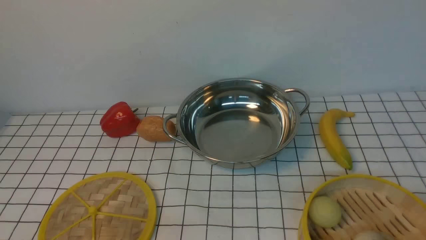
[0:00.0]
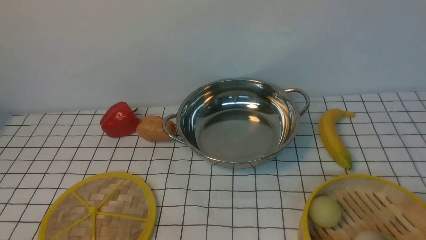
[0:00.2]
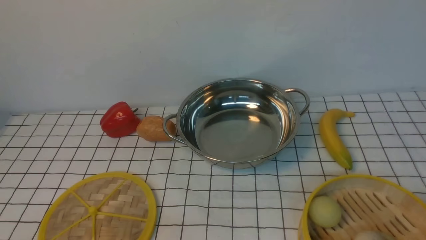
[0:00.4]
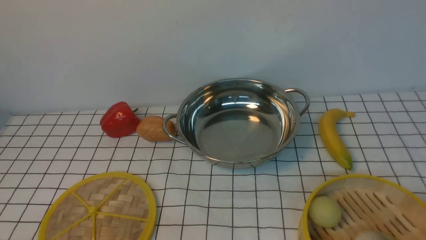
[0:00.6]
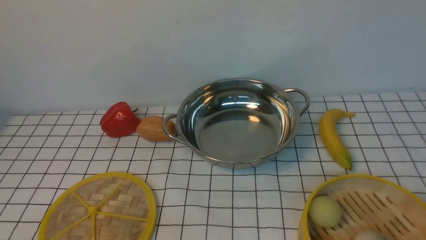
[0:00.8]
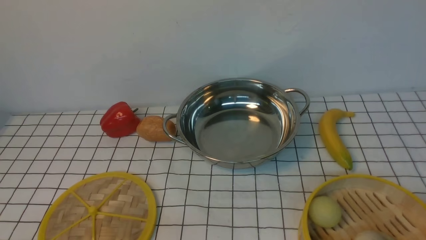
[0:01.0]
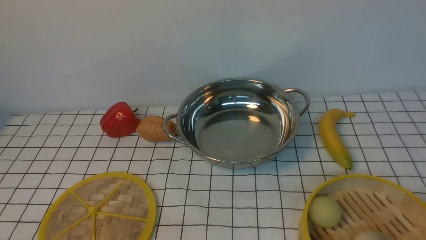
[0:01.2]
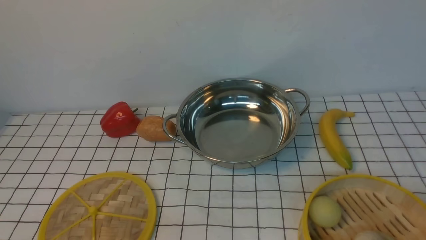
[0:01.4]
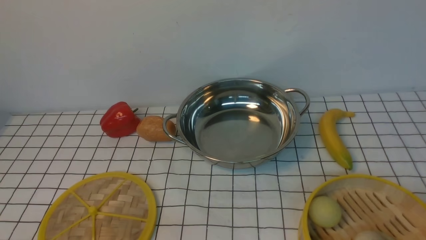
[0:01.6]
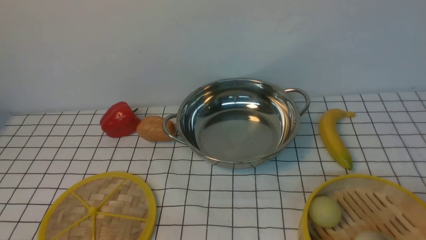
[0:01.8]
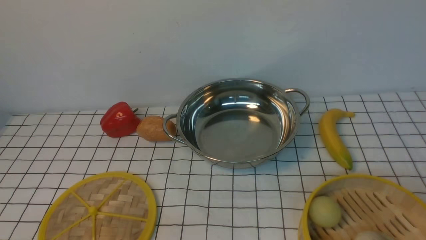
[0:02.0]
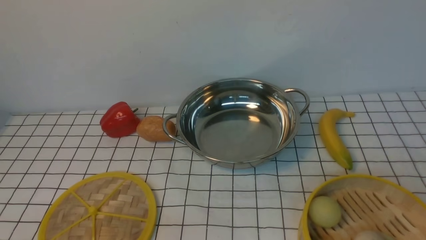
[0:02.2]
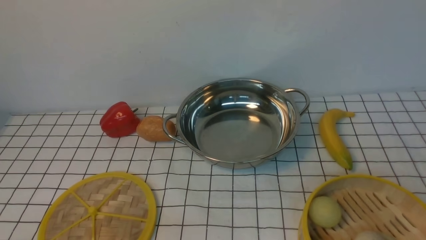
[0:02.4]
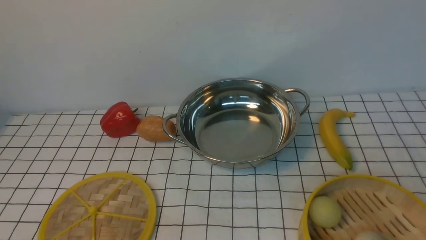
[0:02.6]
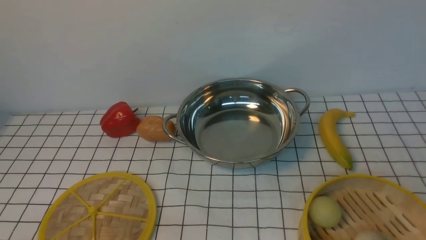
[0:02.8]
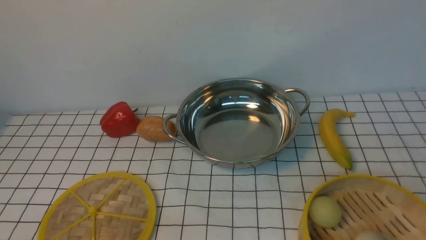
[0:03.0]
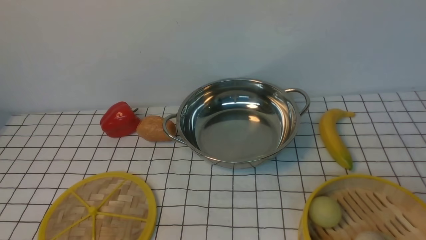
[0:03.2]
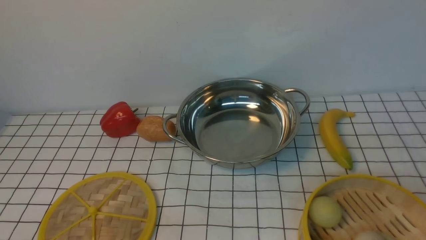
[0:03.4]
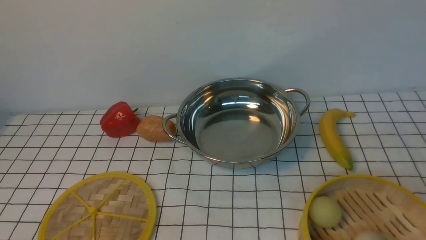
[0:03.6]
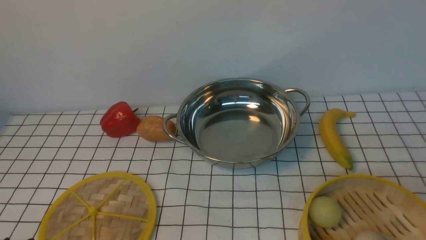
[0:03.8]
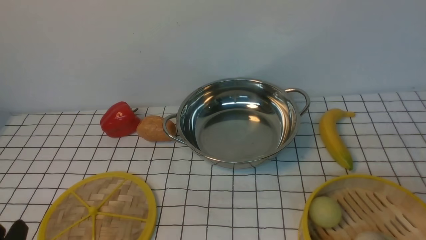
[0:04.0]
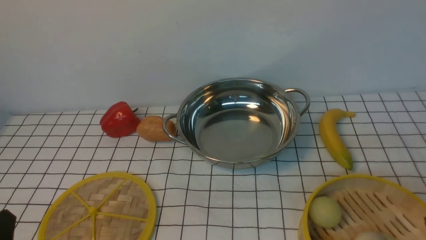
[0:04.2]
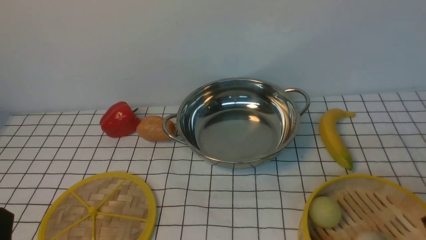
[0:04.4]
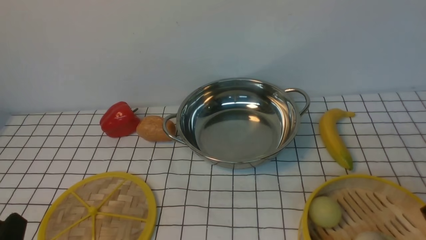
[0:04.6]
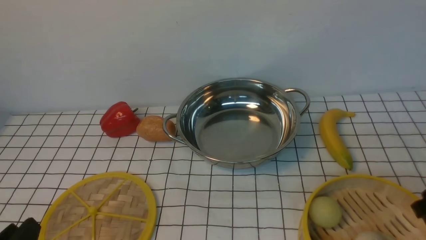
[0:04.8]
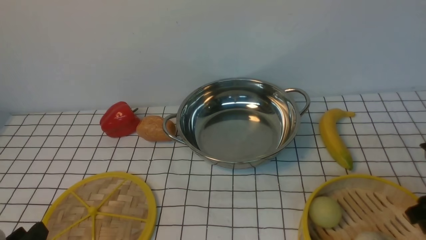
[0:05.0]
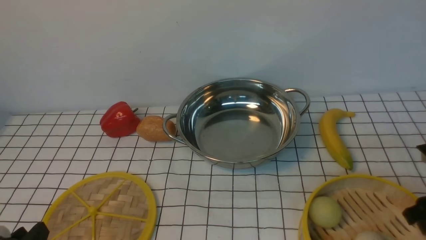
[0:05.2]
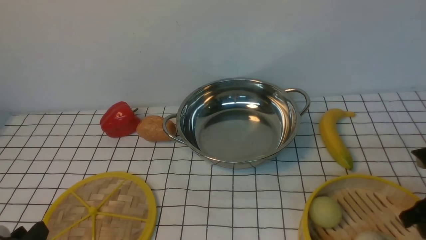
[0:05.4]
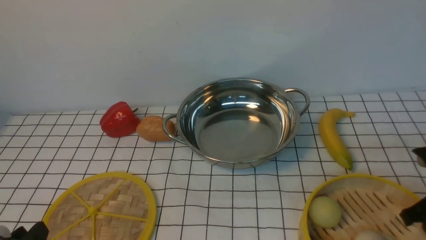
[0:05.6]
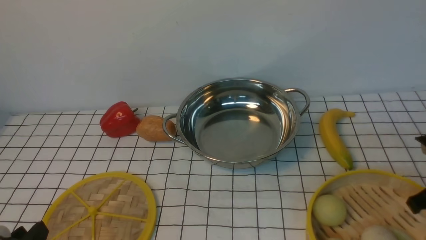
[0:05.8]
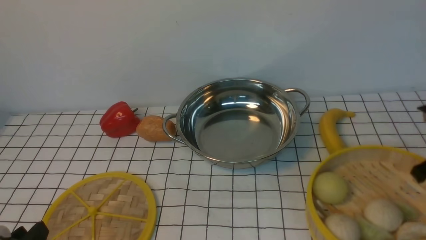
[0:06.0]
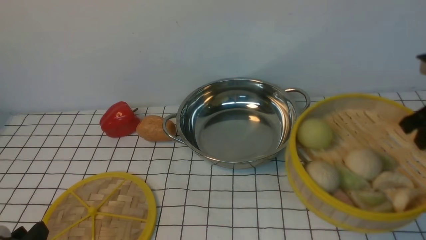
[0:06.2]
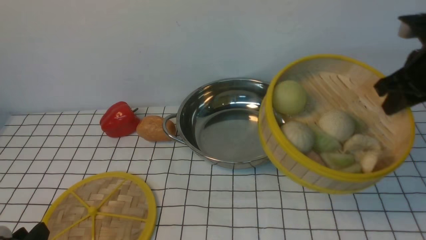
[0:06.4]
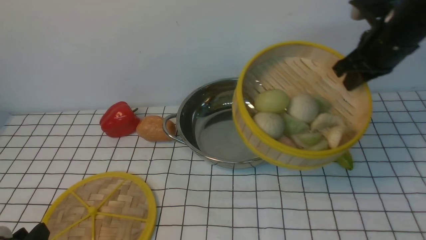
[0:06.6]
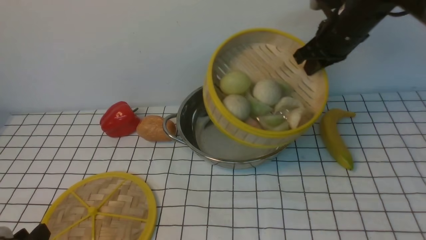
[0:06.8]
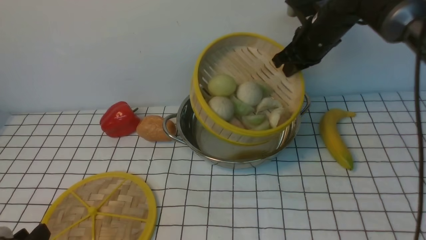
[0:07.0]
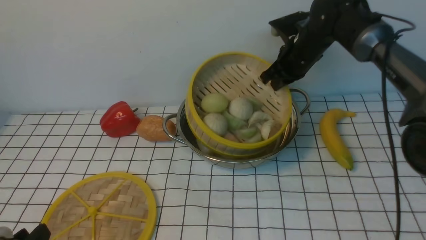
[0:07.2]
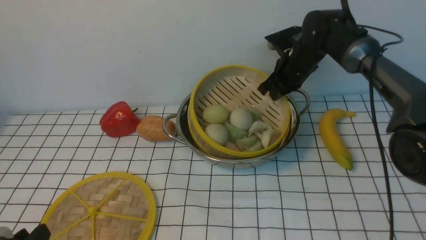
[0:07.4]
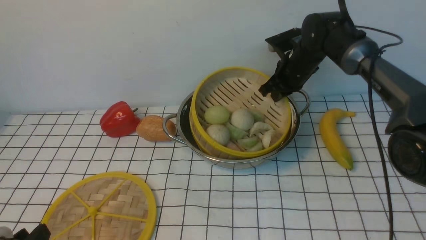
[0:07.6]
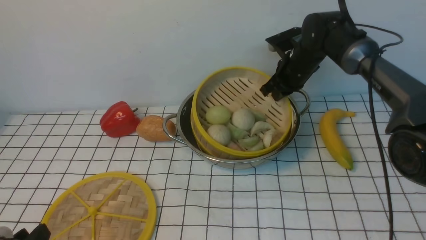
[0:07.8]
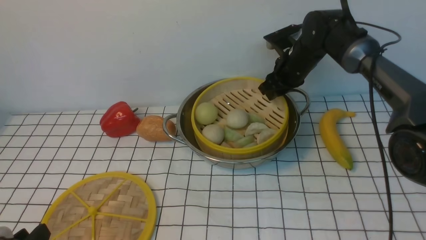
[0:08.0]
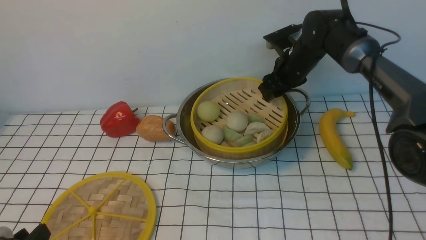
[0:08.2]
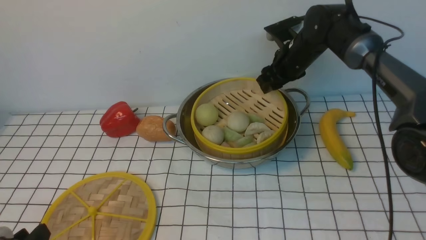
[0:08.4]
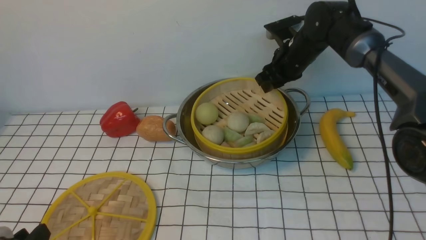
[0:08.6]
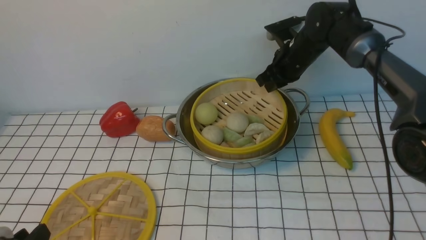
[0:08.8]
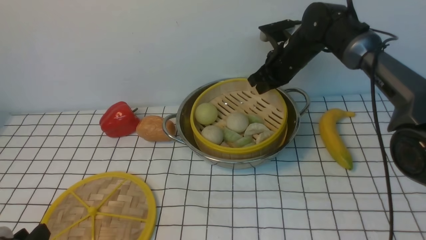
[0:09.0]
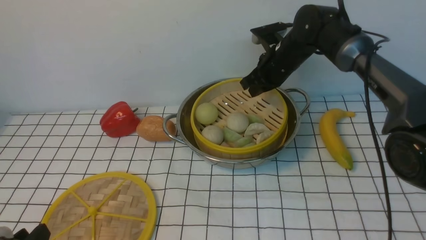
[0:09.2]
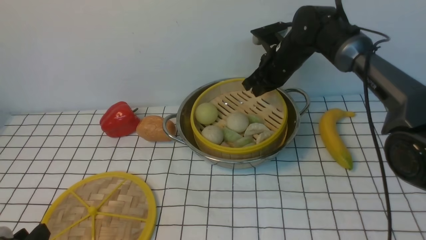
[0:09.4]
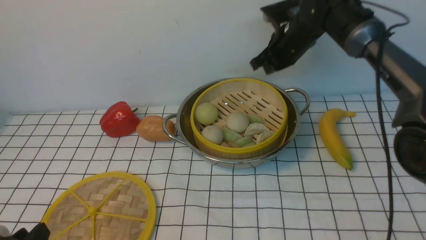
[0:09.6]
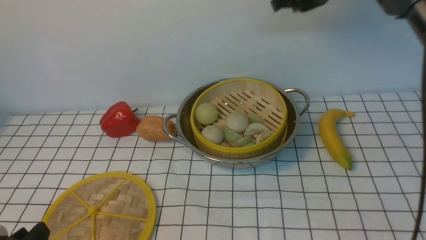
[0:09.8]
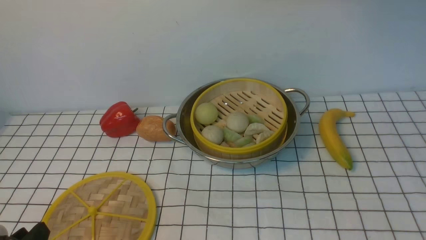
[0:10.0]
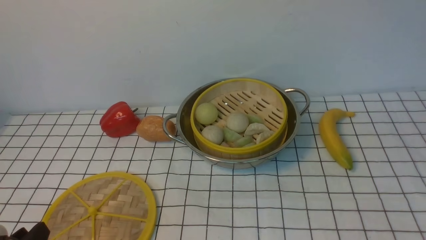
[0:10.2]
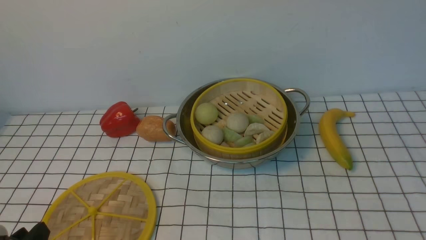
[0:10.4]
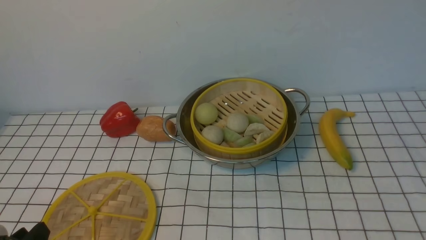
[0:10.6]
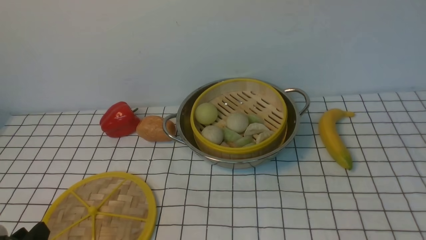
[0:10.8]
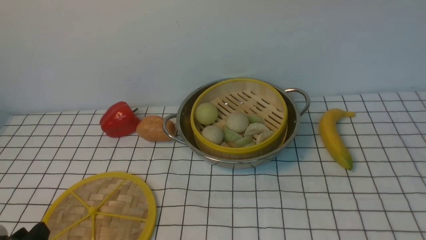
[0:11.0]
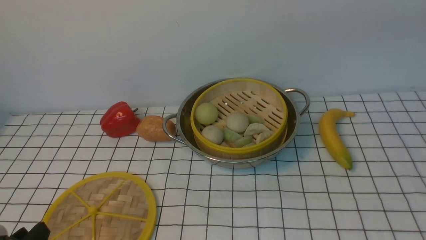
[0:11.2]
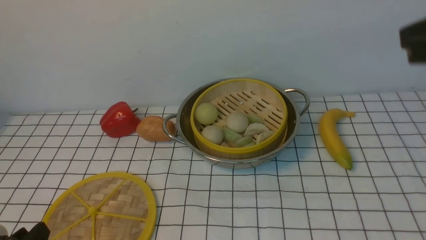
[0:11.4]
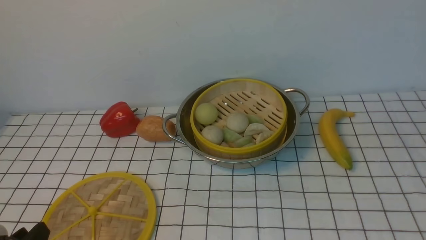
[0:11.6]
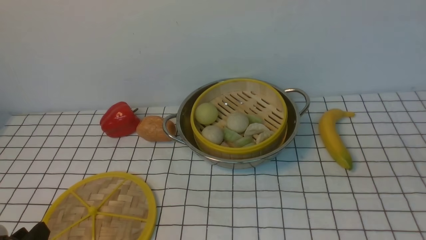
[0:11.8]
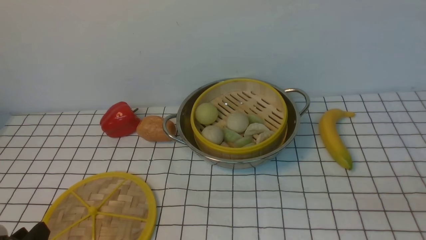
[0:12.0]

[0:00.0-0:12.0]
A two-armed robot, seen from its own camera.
Task of the whole recording: place the steamer in the pot on the white tablecloth, and put the lid on the steamer.
Step, 0:00.0 to 0:05.8: use the right arm to lift the steamer closest to it.
Step, 0:06.0 to 0:09.4: use the right arm to put the steamer into the iron steamer pot in the middle.
0:04.4 to 0:06.0: The right gripper moves forward, some 10 cm, and closes its fingers.
0:06.0 to 0:07.6: The right gripper heads forward and to the left, covering approximately 30 cm.
0:07.6 to 0:09.0: The right gripper opens, then closes again.
0:09.0 to 0:10.4: The right gripper moves upward and backward, about 35 cm.

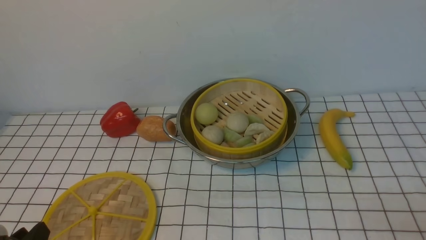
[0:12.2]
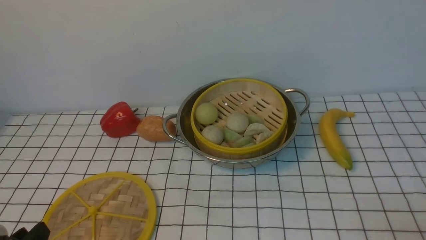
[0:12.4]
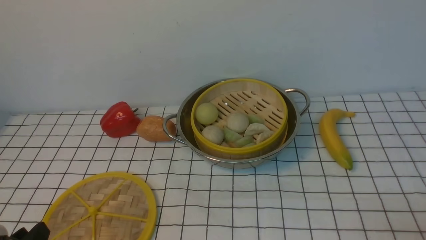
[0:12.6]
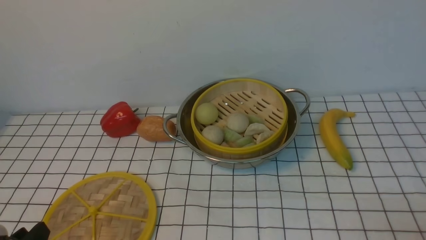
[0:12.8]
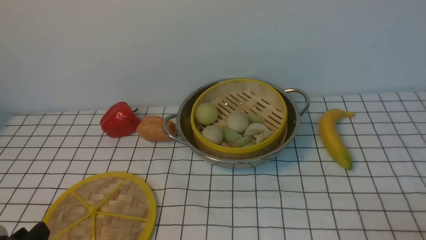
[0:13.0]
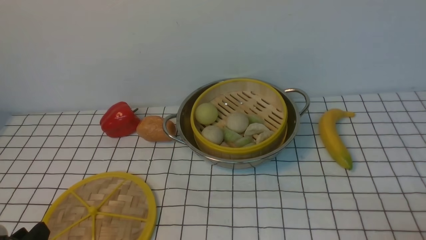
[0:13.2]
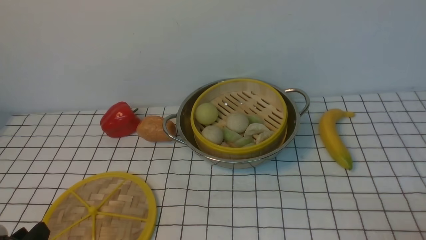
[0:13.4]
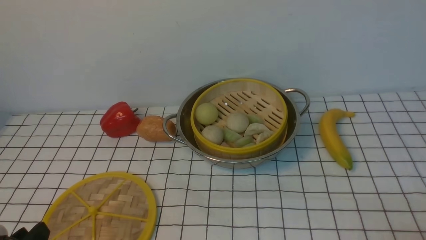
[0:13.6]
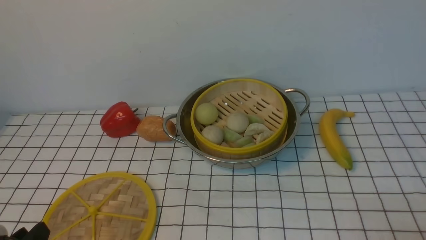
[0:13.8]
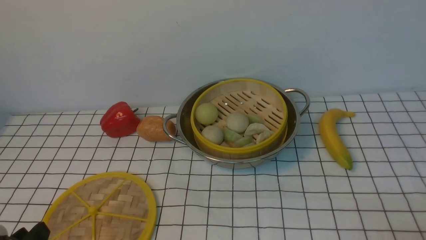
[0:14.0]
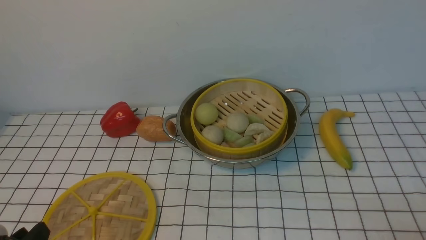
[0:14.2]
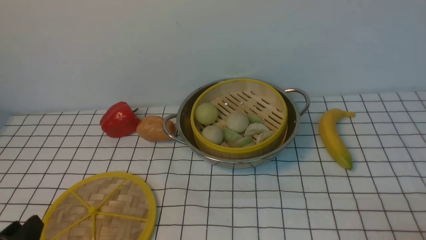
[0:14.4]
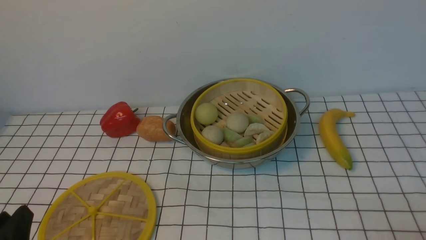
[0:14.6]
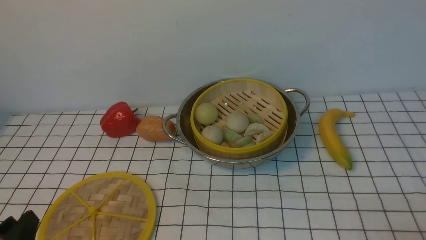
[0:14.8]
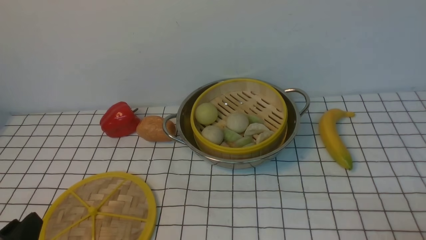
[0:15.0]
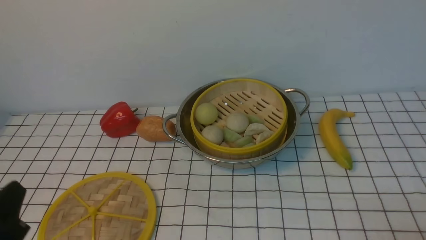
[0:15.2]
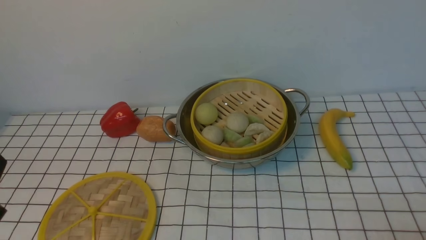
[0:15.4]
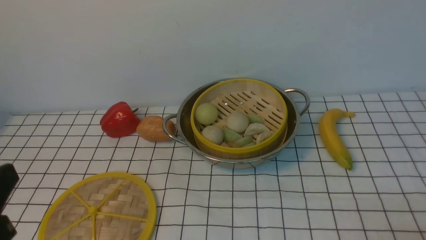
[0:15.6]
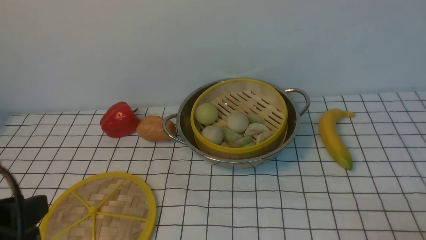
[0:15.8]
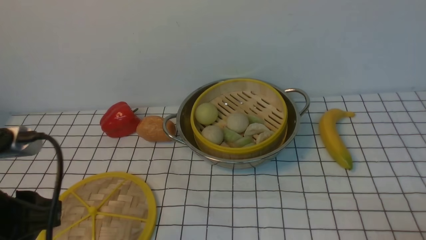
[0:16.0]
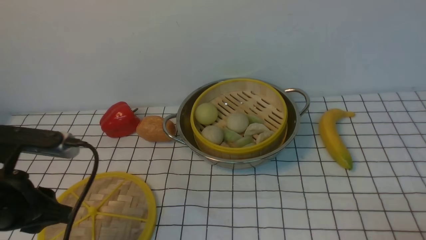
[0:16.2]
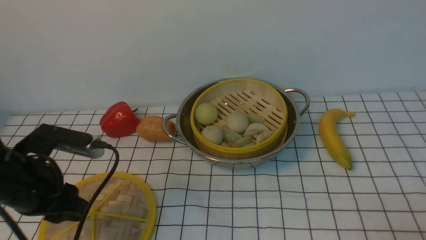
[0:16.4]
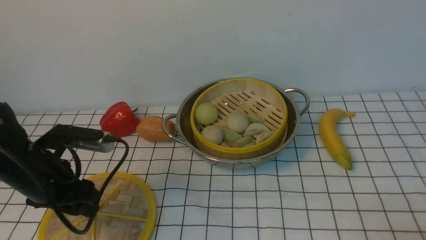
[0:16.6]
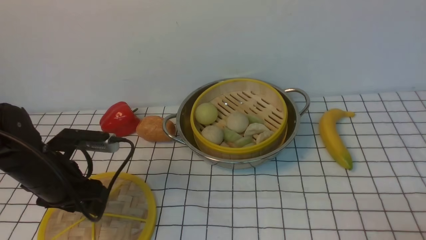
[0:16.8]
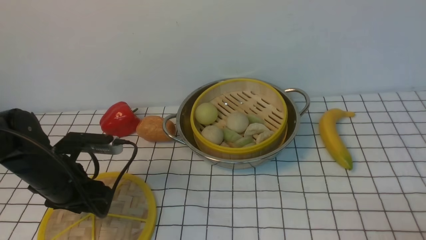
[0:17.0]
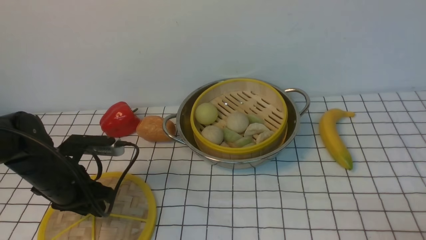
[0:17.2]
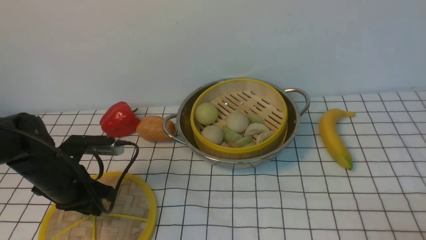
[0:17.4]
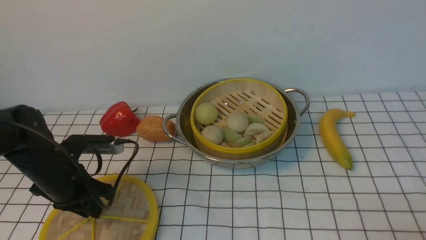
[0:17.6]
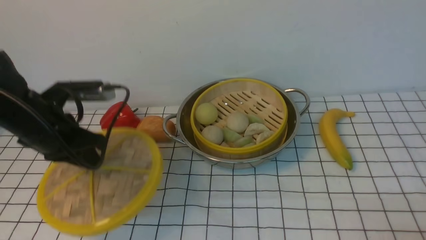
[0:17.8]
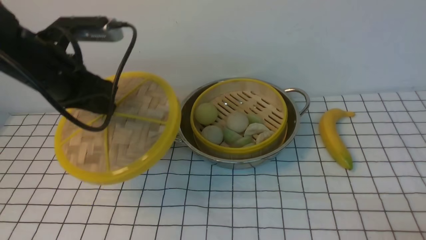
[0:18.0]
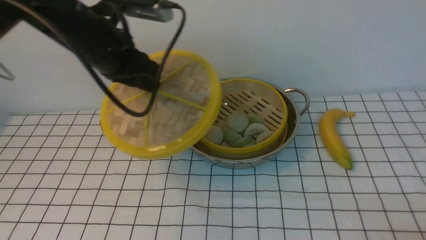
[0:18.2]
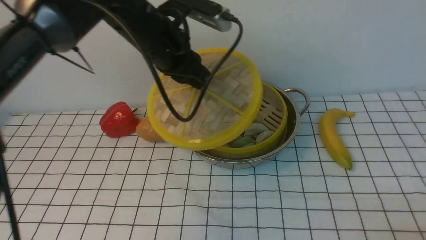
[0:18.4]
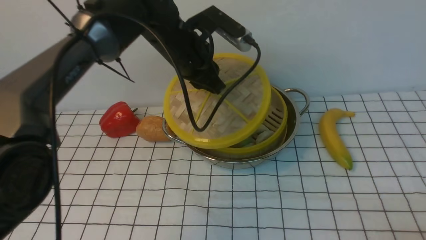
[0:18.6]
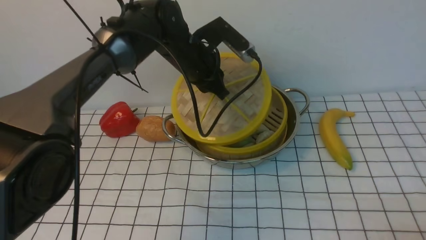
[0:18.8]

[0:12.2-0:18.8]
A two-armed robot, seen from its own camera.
Task of the whole recording: place the steamer in the pot on the white tablecloth, and put the lid on the steamer.
Step, 0:12.2 to 0:17.6: use the left arm to lift the lid of the steamer.
0:13.8 to 0:15.4: The left gripper heads upward, covering some 10 cm.
0:15.4 to 0:17.2: The left gripper heads forward and downward, covering roughly 25 cm, and opens, then closes once more.
0:17.2 to 0:18.8: The left gripper heads to the right, forward and upward, covering roughly 30 cm.
